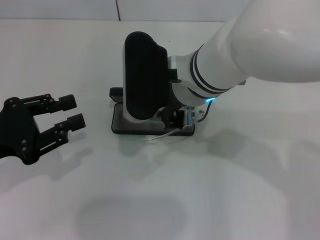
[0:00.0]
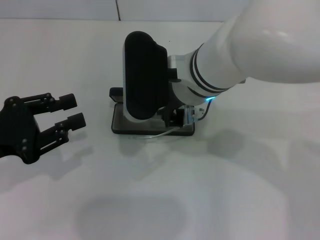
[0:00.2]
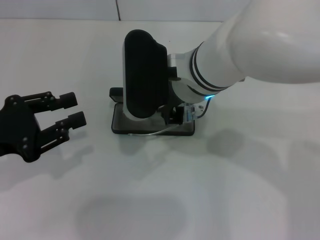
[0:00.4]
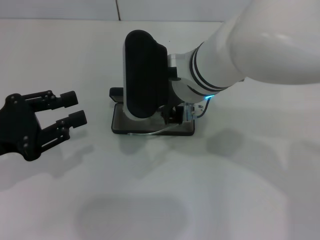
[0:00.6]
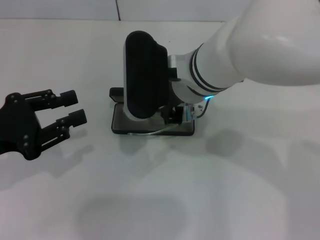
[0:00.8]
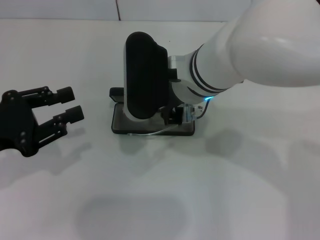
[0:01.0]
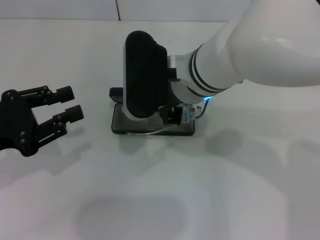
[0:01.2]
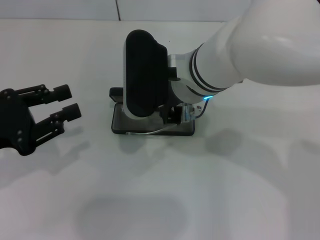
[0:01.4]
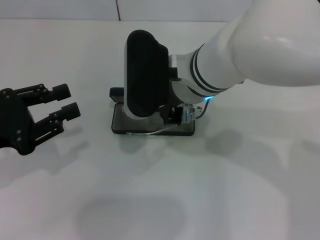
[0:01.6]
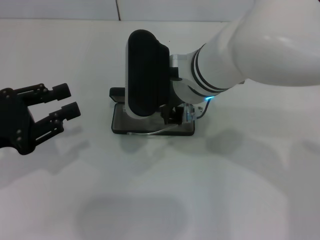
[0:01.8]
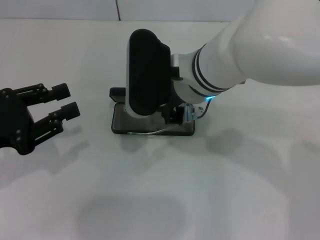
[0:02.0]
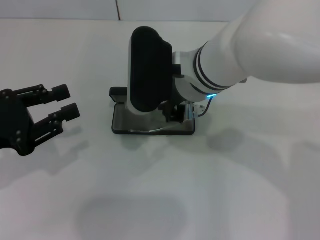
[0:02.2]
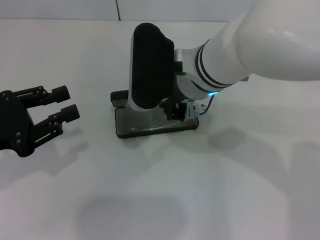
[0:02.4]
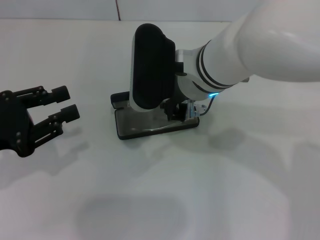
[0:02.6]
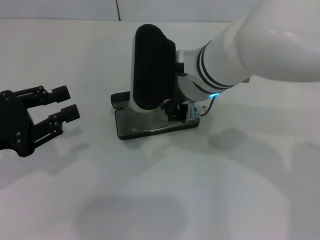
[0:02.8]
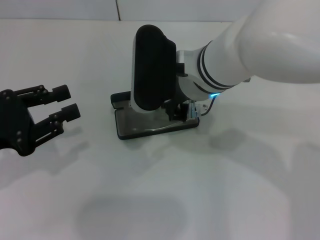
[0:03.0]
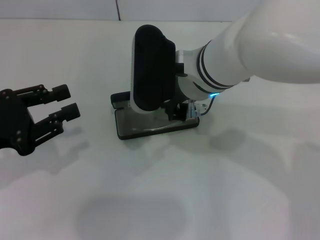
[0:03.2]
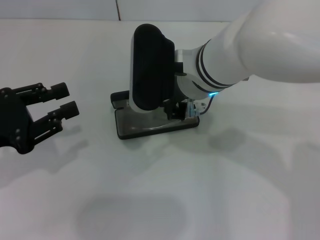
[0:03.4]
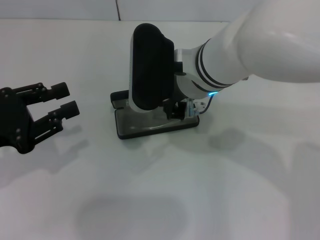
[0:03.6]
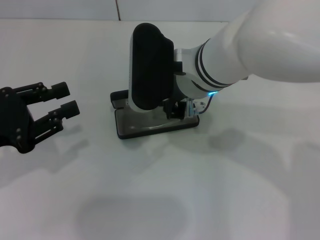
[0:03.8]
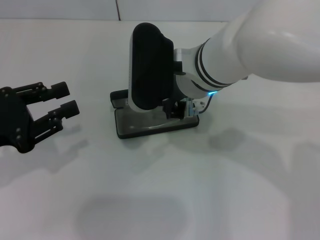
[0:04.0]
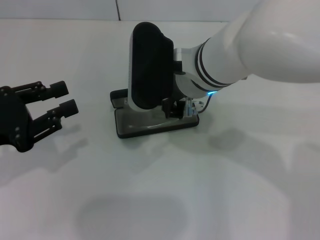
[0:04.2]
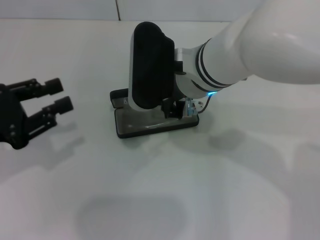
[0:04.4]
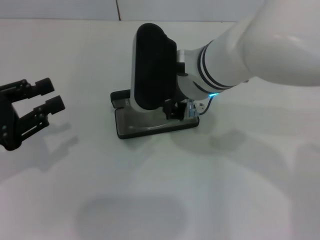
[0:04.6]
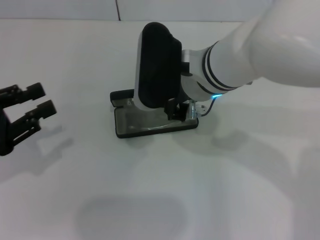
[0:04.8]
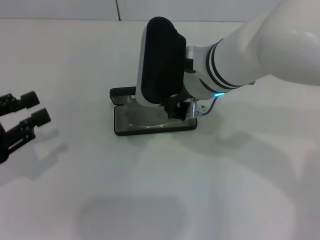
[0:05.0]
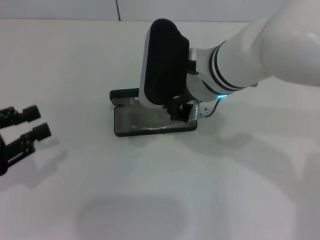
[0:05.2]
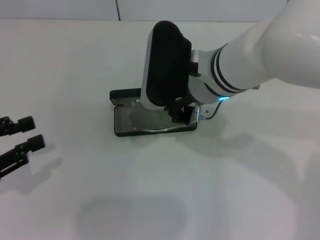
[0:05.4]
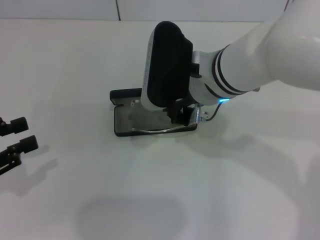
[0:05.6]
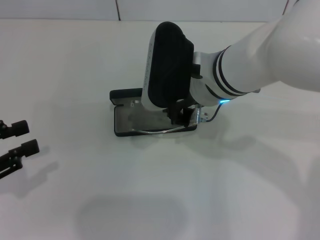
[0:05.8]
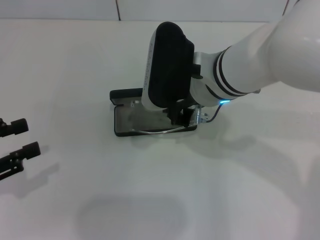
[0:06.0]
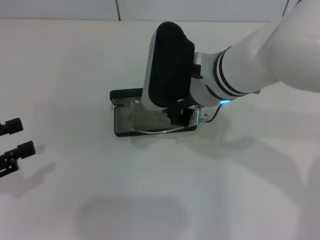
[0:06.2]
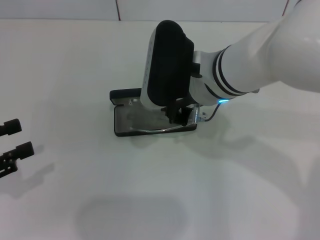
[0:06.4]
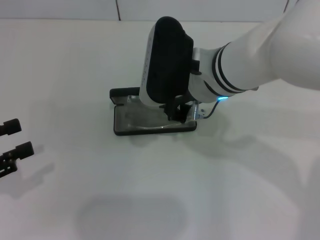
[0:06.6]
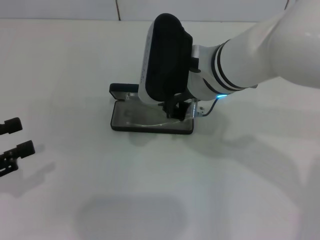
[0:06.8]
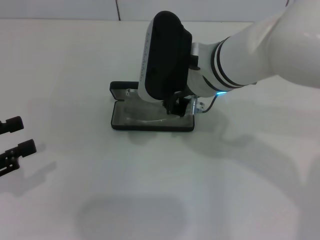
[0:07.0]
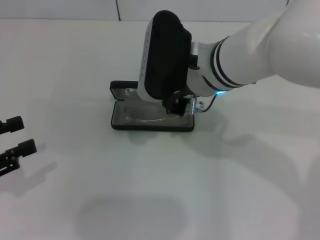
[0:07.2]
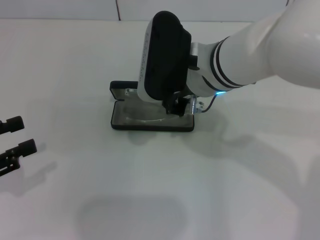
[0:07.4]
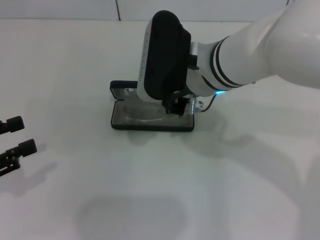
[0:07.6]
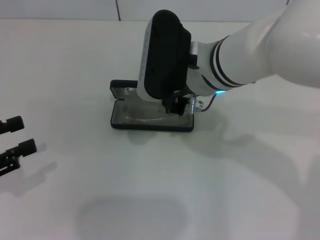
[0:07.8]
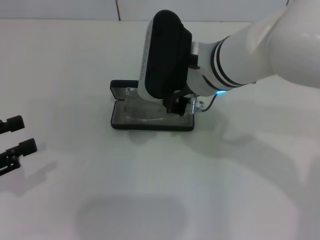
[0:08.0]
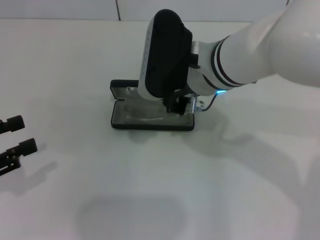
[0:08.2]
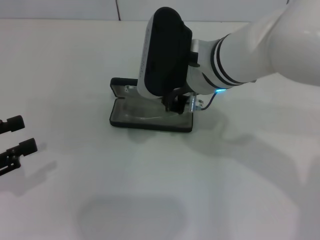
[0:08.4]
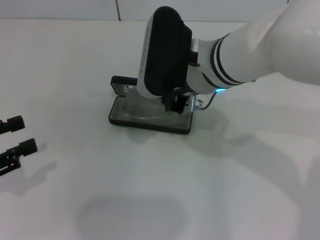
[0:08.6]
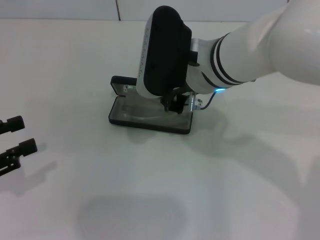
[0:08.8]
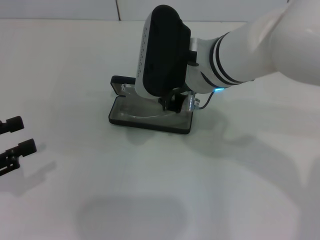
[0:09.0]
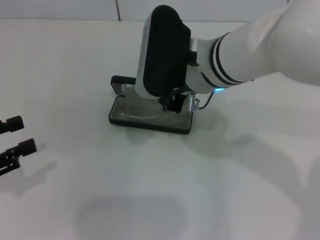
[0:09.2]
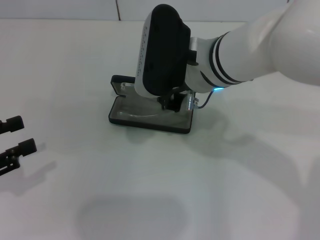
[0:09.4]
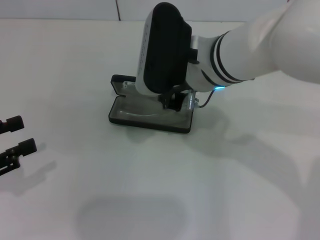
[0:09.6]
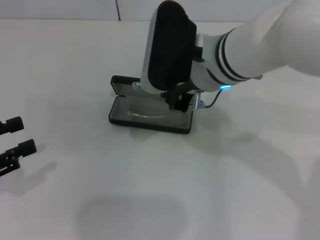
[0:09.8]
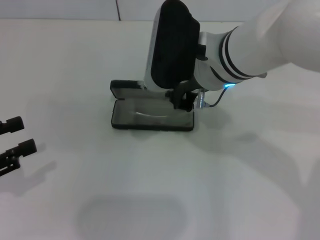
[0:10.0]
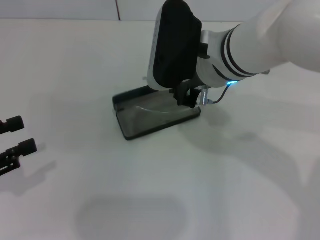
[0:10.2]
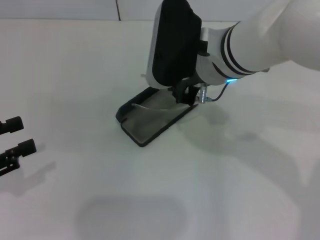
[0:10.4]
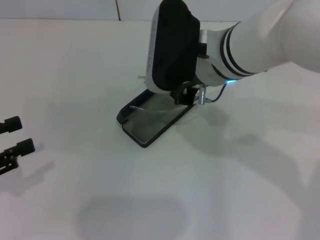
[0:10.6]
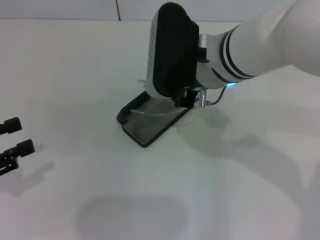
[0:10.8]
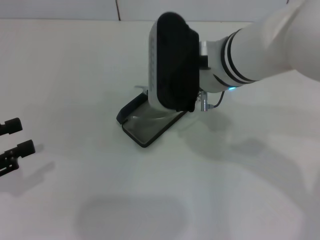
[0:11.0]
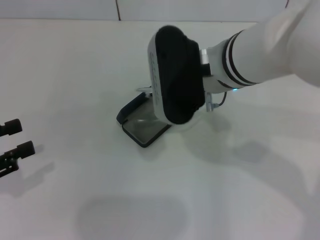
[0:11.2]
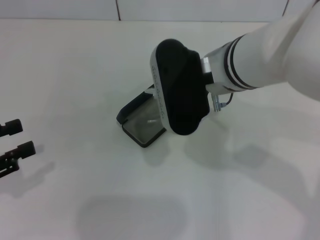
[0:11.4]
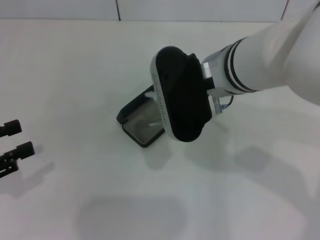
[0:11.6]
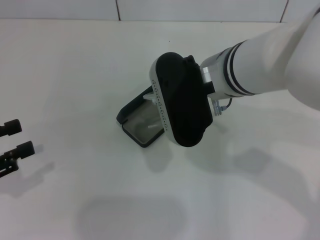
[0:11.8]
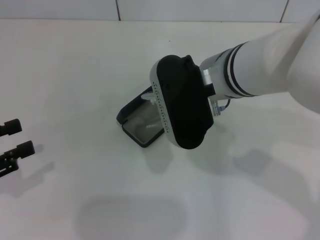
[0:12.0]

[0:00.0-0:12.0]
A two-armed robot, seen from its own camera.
0:00.0 to 0:01.6: The two grippers keep their place.
0:01.6 to 0:04.4: Both grippers stay put.
0:04.4 to 0:06.0: The left gripper shifts by approximately 5 cm.
0:06.0 to 0:07.6: Both grippers stay put.
0:07.6 to 0:09.0: Both grippers stay put.
0:09.0 to 0:10.4: The grippers move only a little.

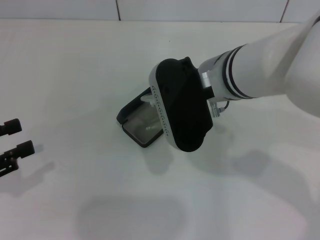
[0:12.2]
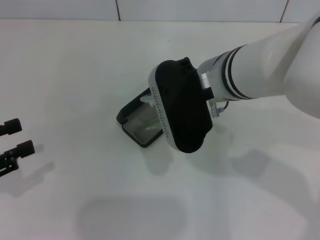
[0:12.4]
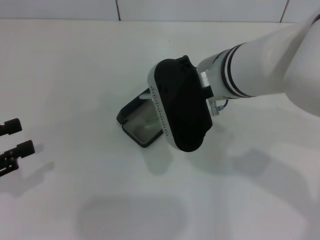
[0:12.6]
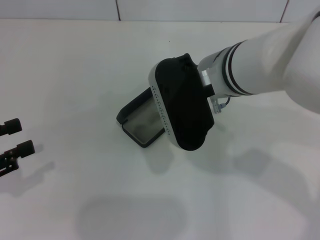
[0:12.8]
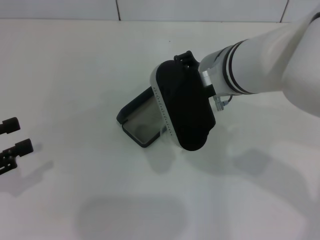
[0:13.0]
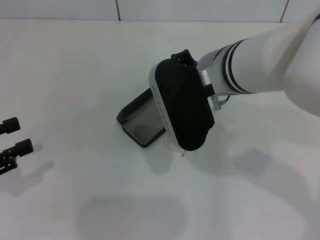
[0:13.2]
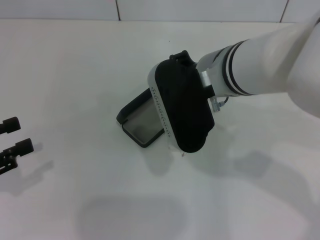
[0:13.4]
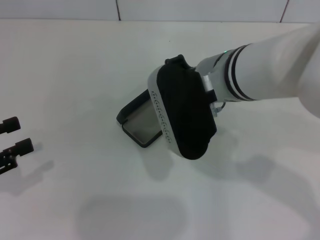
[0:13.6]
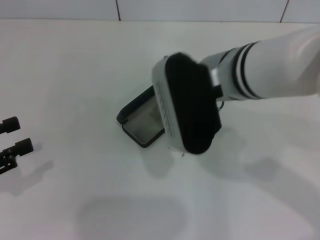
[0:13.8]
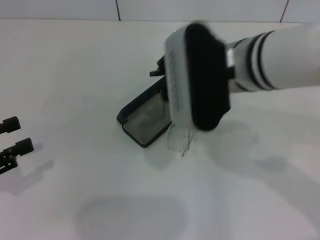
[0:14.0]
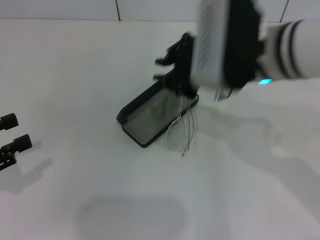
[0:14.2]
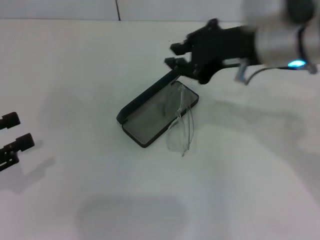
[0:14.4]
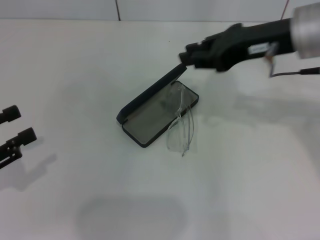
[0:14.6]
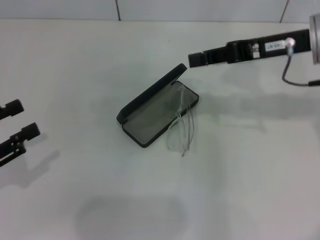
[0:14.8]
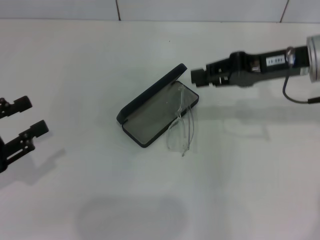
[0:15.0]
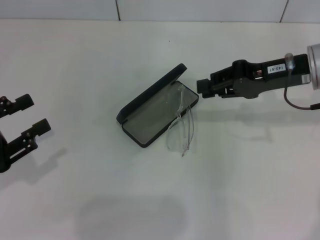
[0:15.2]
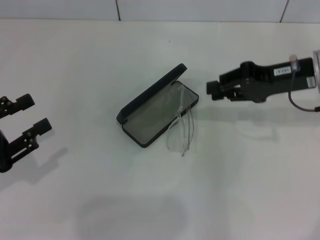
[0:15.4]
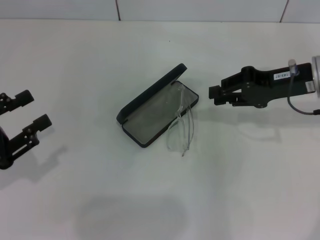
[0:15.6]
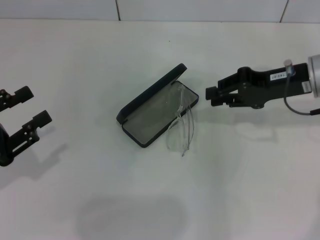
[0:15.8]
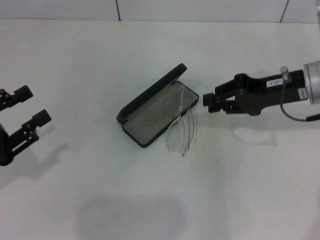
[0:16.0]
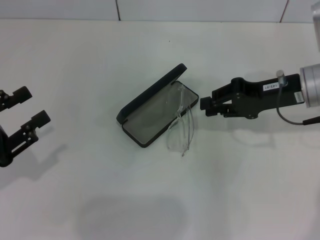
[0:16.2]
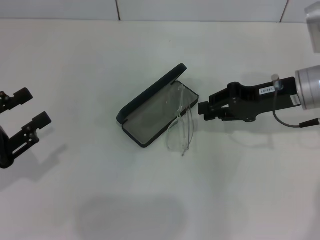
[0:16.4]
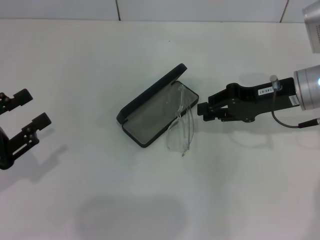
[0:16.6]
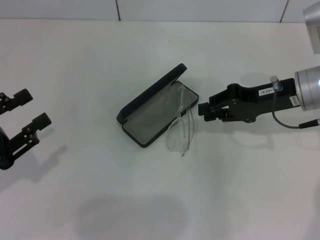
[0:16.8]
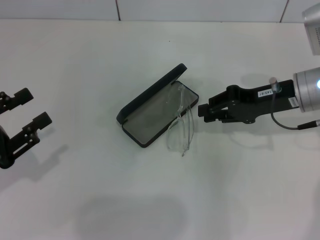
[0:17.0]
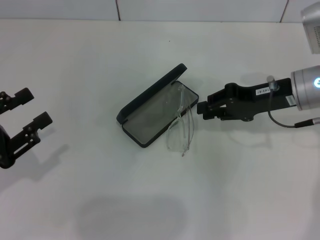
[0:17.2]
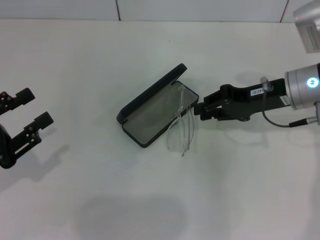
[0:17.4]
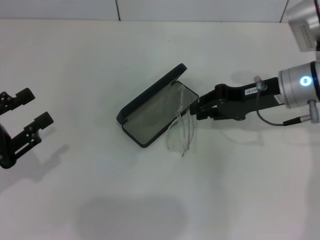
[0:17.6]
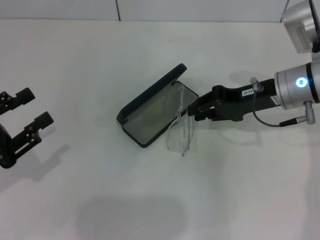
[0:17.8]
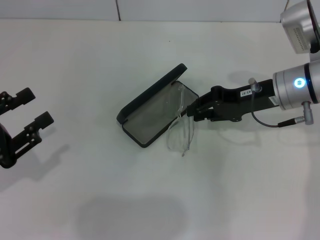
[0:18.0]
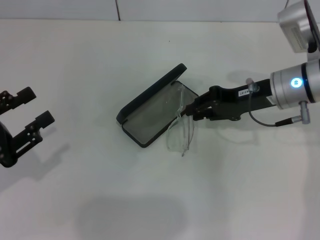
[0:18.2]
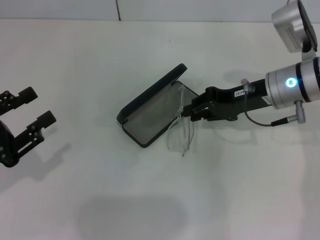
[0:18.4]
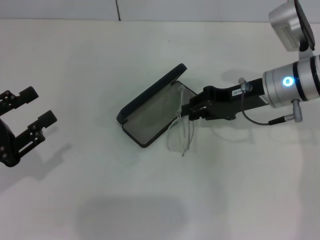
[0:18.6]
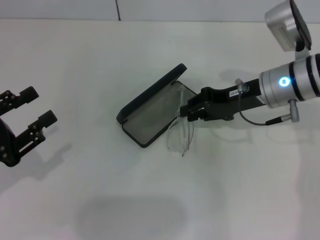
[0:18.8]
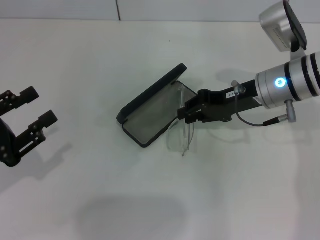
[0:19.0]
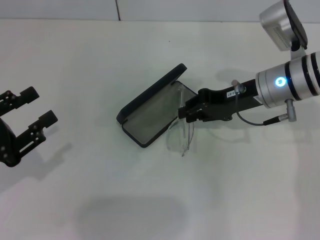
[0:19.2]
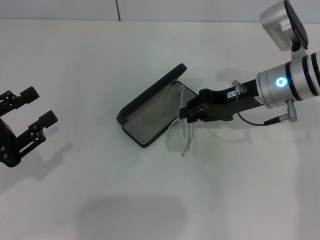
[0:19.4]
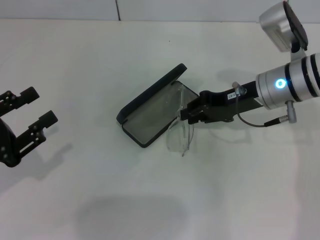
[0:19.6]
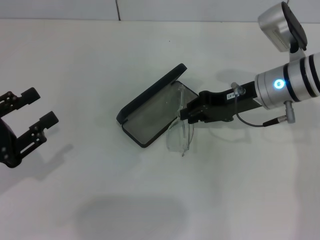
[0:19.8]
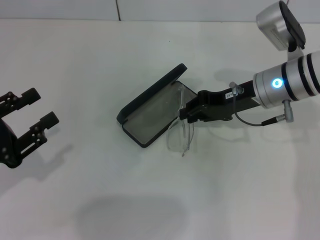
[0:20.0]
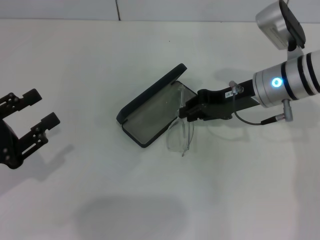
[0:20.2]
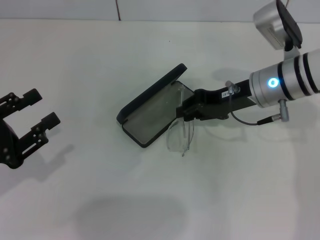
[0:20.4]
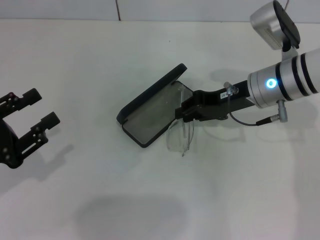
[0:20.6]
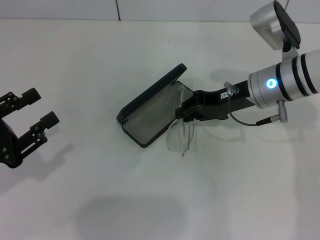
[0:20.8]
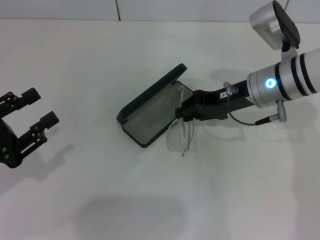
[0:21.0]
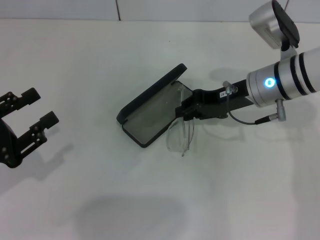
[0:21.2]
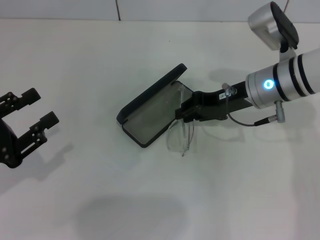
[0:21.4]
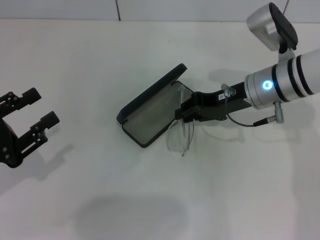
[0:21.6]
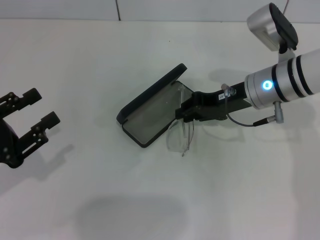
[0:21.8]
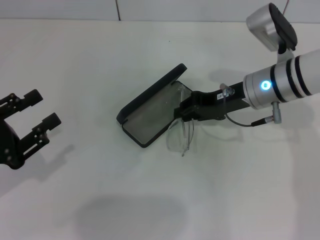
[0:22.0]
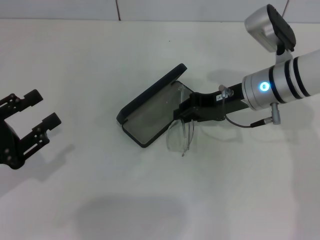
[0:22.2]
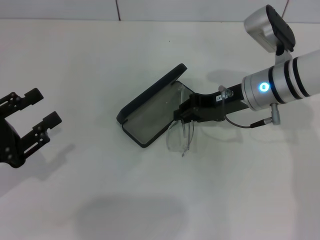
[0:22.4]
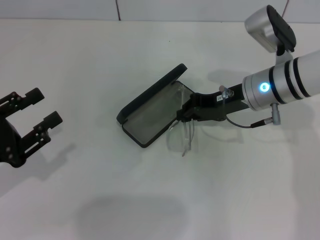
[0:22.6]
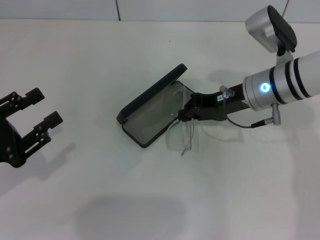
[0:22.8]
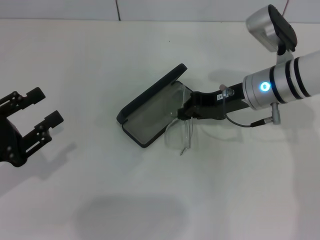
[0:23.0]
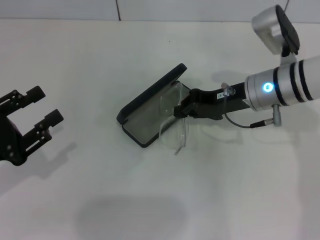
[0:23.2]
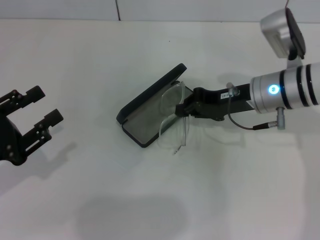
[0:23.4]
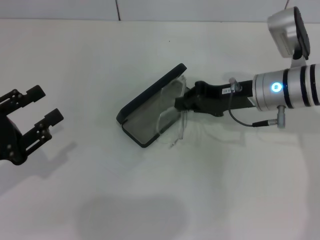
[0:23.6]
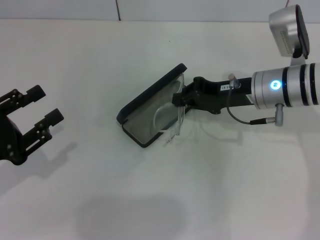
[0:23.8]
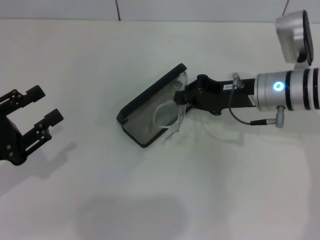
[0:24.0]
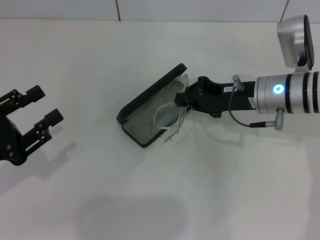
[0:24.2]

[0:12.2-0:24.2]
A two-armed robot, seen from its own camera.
0:12.2 to 0:13.8: The grippers move only a little.
0:13.8 to 0:15.2: The right gripper is displaced to the right by about 15 cm.
0:15.2 to 0:18.2: The grippers stay close to where they were, moving slightly.
0:18.2 to 0:19.8: There are only small adjustments of the grippers.
0:19.8 to 0:21.2: Both grippers stay put.
0:21.2 to 0:22.6: Both grippers stay put.
